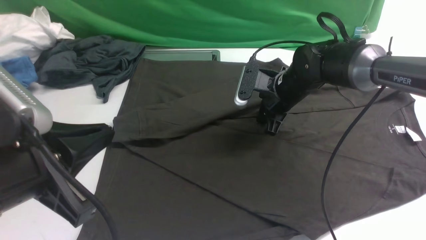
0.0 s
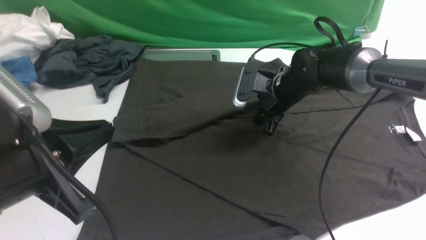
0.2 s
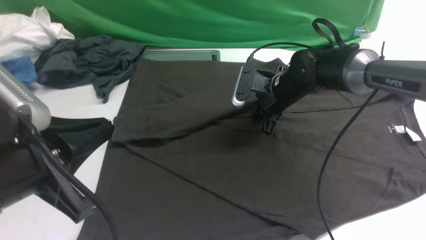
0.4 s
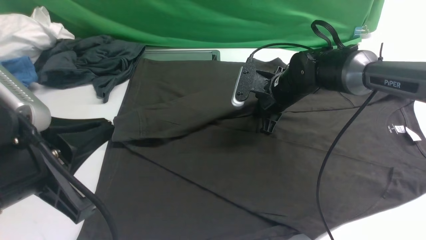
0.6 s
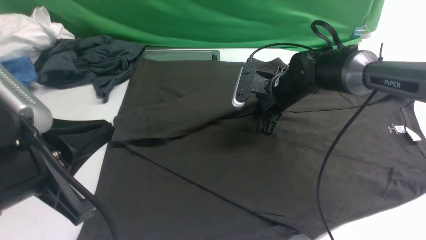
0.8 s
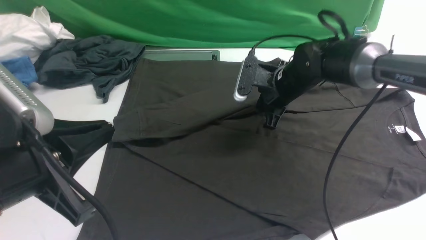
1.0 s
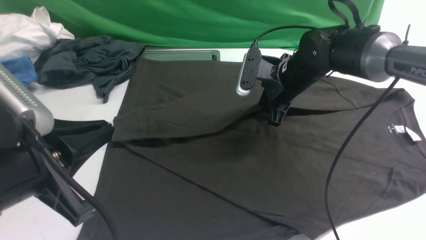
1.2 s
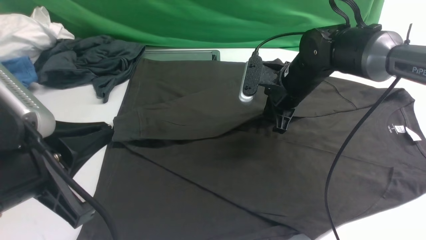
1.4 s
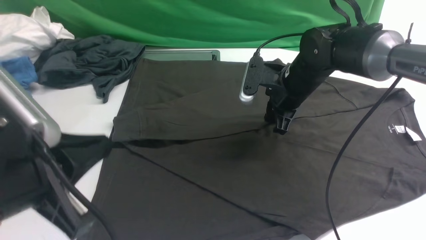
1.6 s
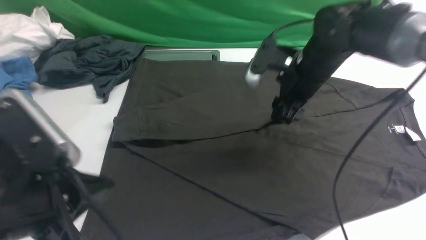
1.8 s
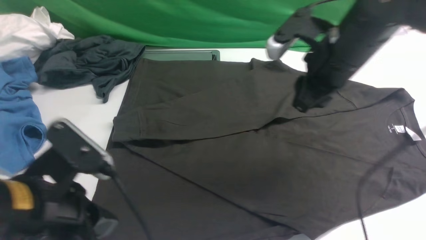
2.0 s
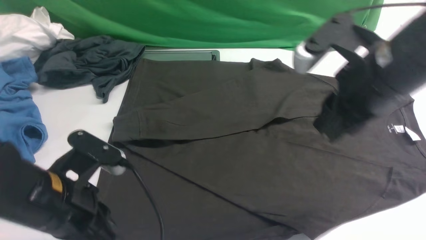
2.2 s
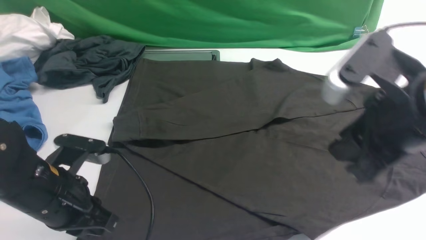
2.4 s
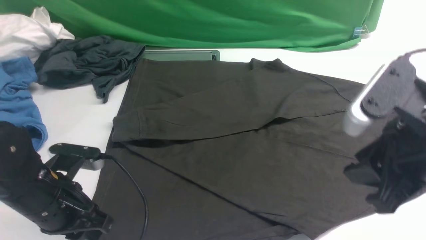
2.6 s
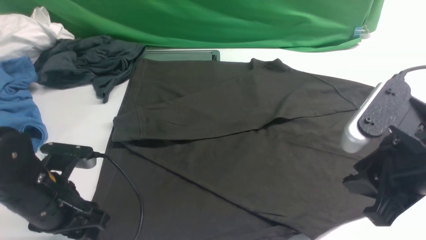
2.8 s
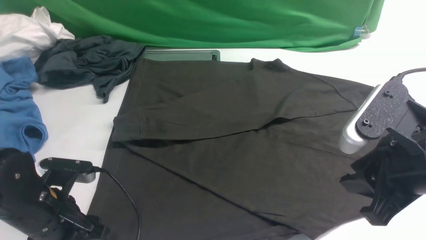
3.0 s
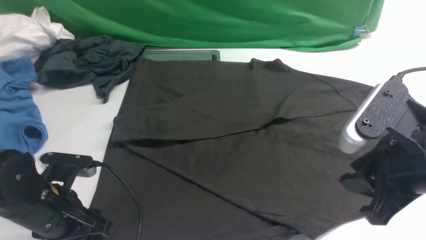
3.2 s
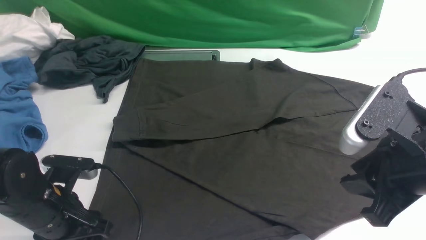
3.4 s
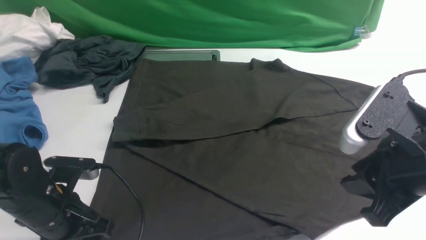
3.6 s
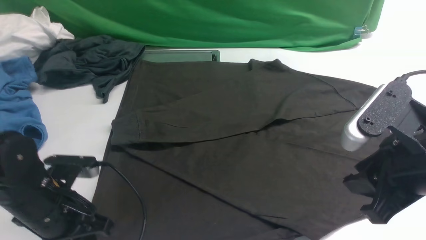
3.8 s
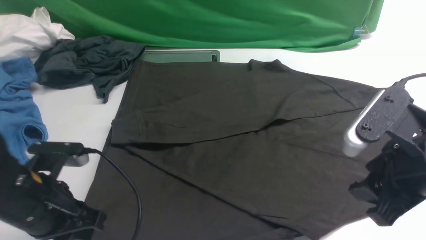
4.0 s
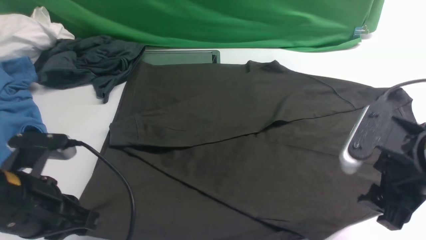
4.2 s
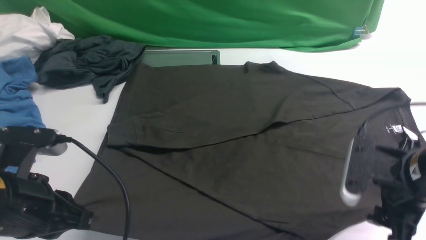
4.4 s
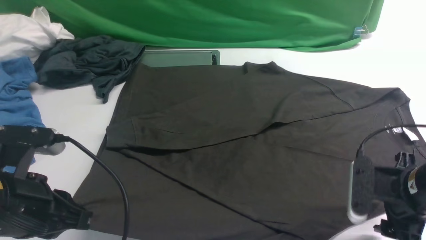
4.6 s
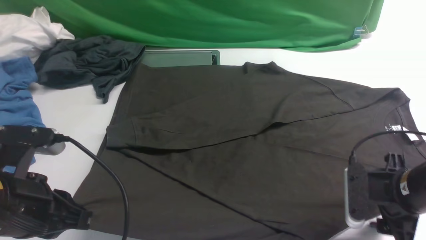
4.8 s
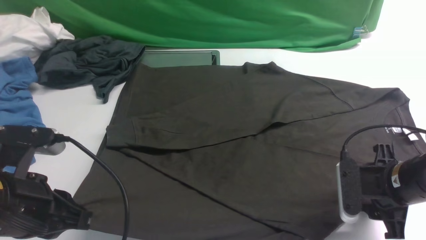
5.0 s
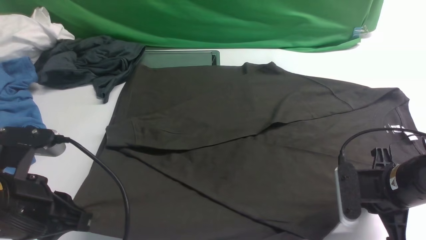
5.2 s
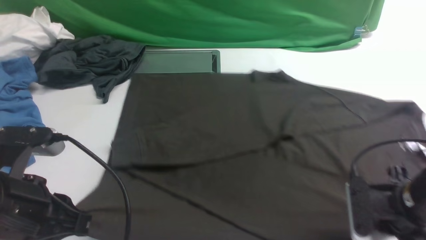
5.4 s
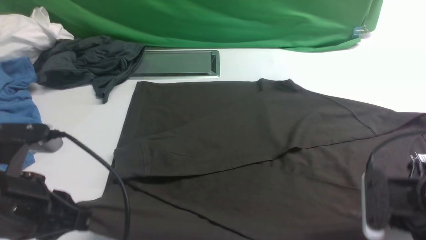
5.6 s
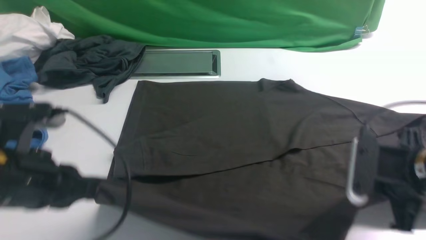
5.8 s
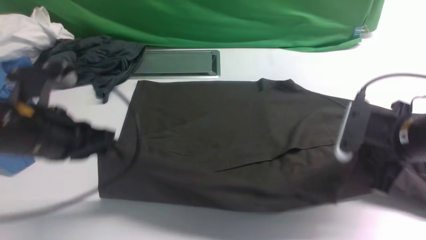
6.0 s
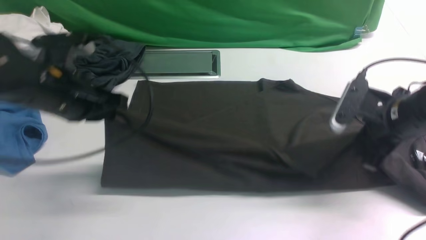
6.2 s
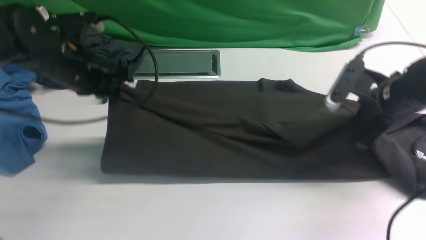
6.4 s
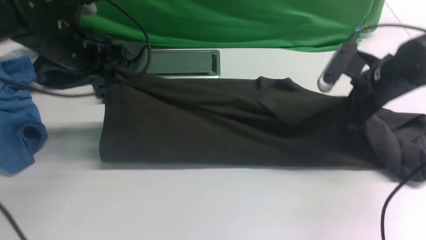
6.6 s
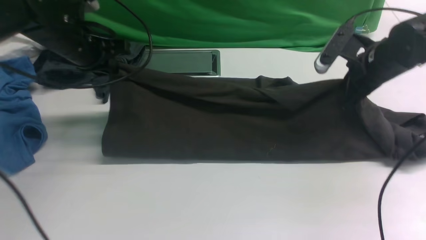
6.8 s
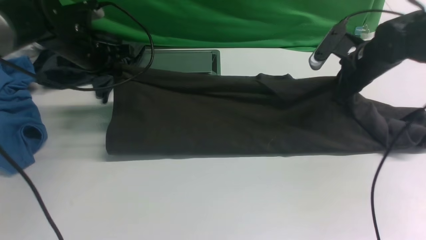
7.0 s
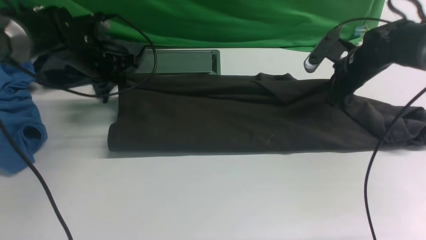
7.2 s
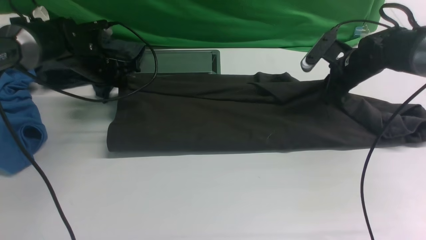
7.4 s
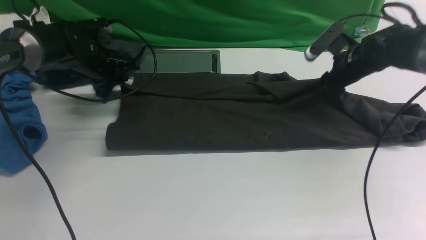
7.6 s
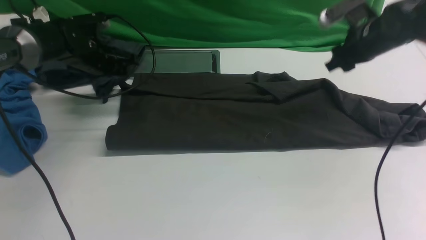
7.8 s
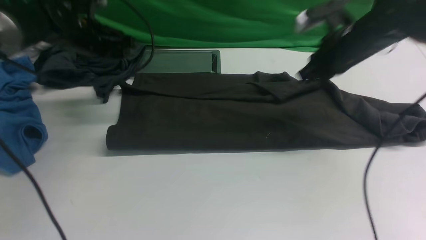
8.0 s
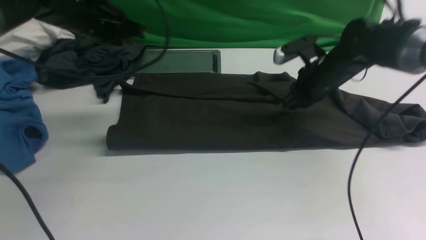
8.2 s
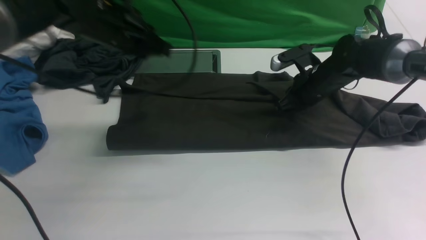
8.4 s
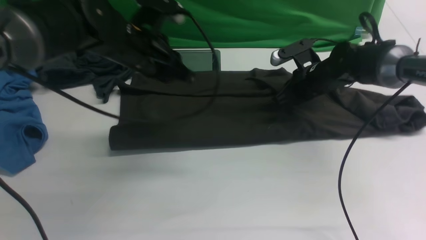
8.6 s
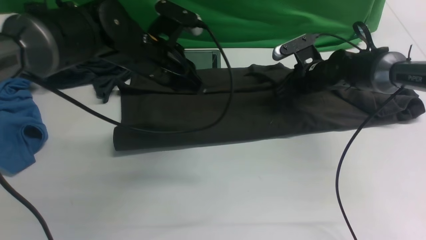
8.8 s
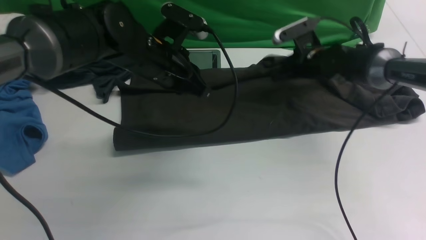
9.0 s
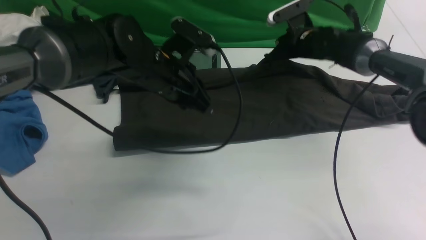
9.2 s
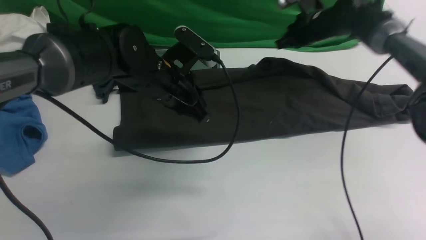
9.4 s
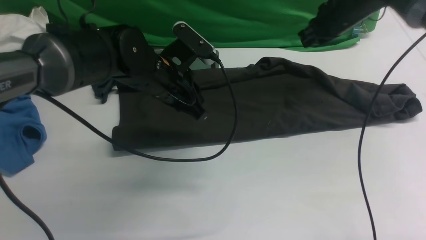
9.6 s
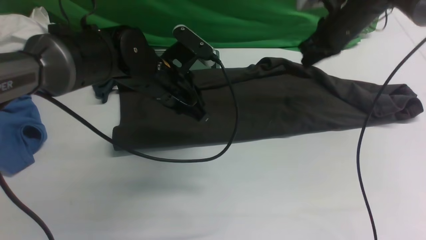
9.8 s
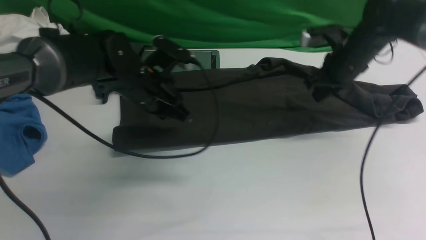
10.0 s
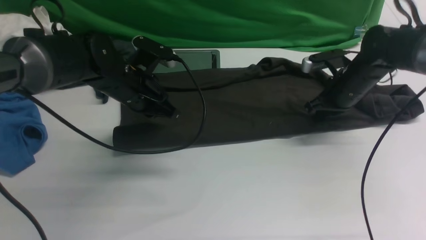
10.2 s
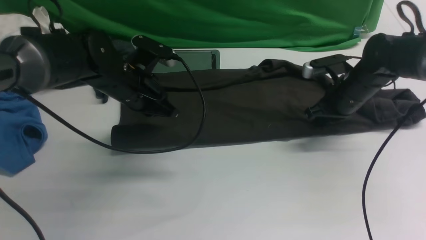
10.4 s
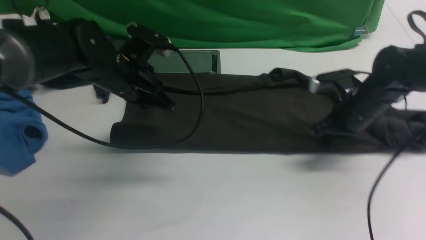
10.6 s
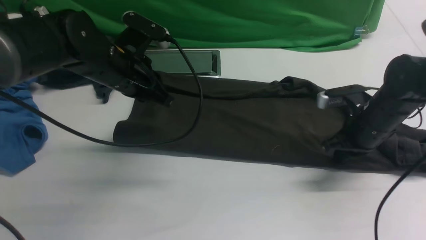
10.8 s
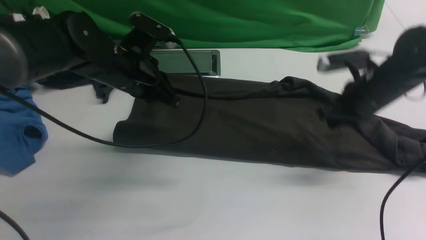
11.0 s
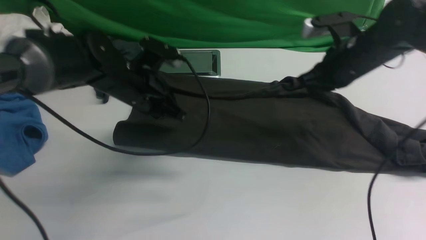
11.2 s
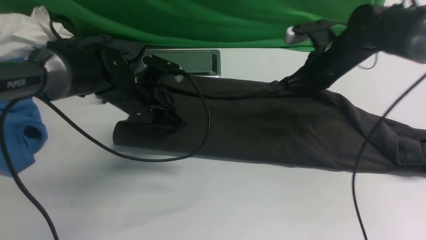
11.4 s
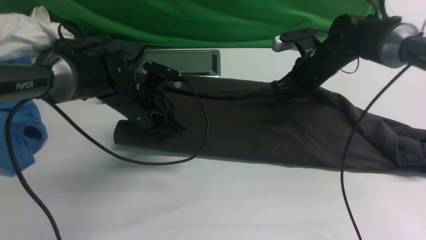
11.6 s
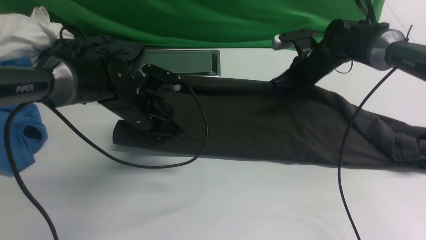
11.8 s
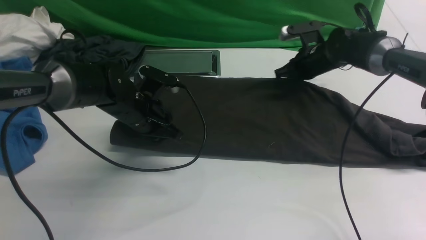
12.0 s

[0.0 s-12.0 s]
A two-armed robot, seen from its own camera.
Step, 0.0 to 5.2 s: use both arms simultaneously to clamp the lower edge of the clothing fabric.
0.0 to 1.6 s: The right gripper travels upward by roughly 5 cm, and closes, then opens again.
1.6 to 3.0 s: The left gripper heads downward and forward, covering roughly 15 cm, and opens. The right gripper is displaced backward by approximately 25 cm.
3.0 to 4.4 s: The left gripper heads upward, covering roughly 10 cm, and closes up. Meanwhile the right gripper goes some 10 cm downward, and opens.
4.4 to 6.0 s: The two grippers go some 5 cm forward. The right gripper closes up.
6.0 to 7.6 s: The grippers both shift forward by some 20 cm. The left gripper opens. Meanwhile the right gripper opens its fingers.
7.6 to 9.0 s: The right gripper is displaced to the left and forward by some 10 cm, and closes its fingers; the left gripper moves to the right, backward and upward, roughly 20 cm, and closes.
9.0 to 10.4 s: The right gripper travels backward and to the right by roughly 10 cm; the left gripper travels to the left by approximately 5 cm.
10.4 to 12.0 s: The right gripper is displaced forward by roughly 10 cm. Meanwhile the left gripper travels downward by some 5 cm.

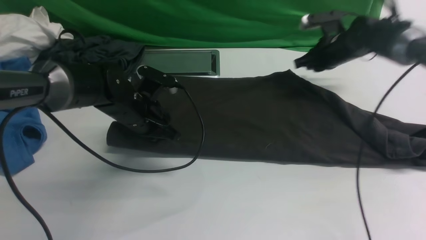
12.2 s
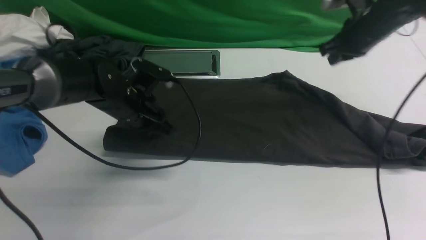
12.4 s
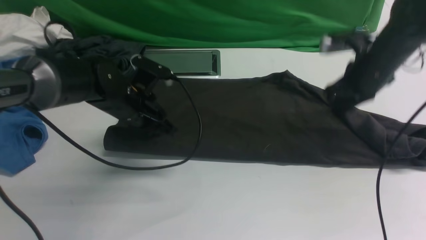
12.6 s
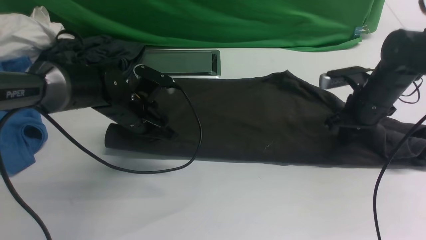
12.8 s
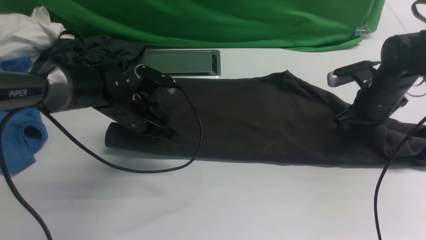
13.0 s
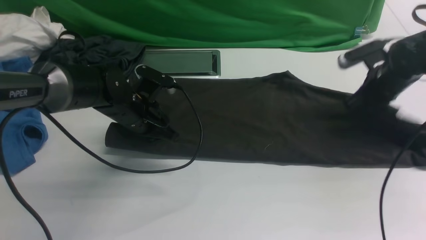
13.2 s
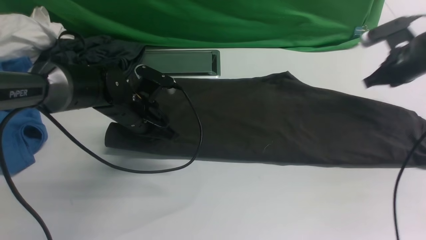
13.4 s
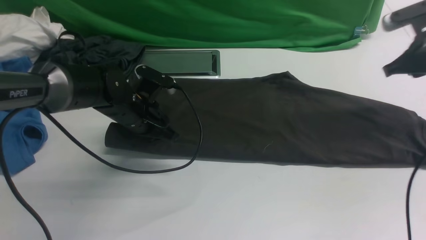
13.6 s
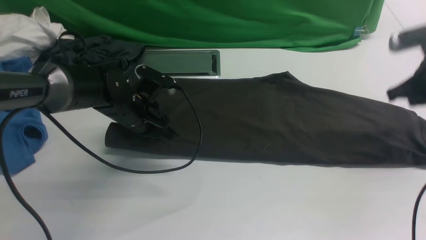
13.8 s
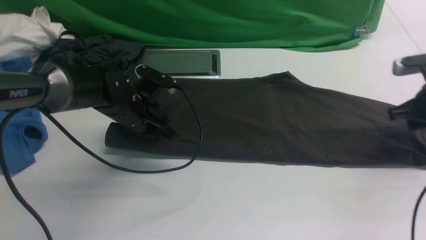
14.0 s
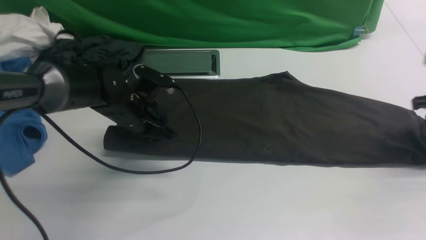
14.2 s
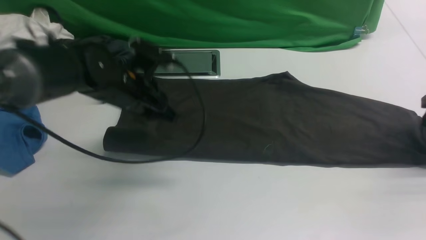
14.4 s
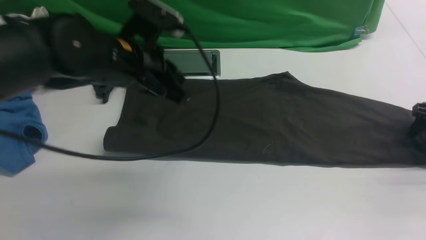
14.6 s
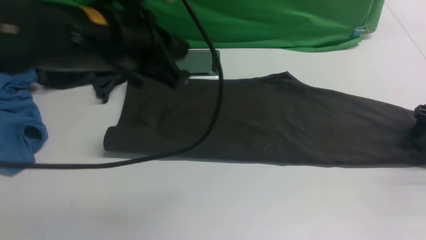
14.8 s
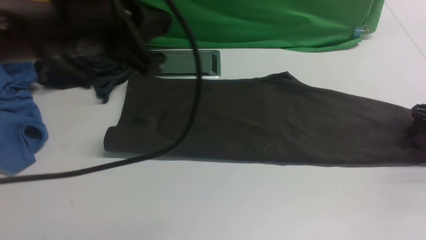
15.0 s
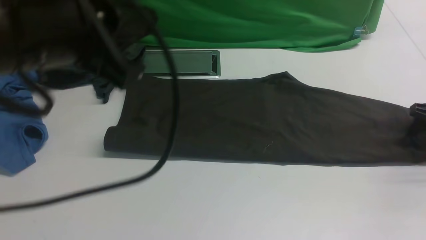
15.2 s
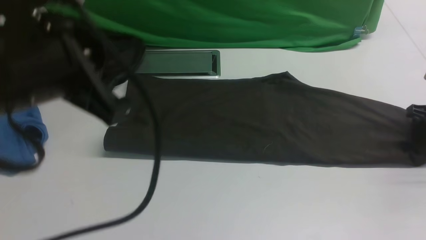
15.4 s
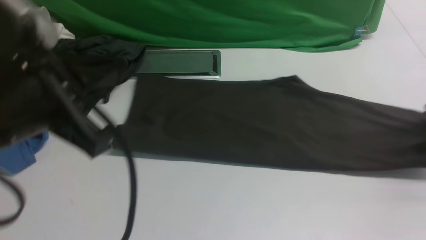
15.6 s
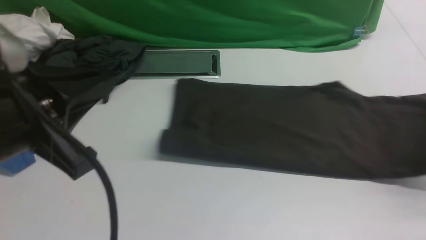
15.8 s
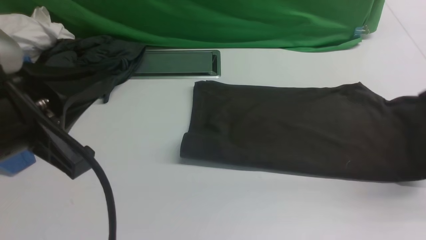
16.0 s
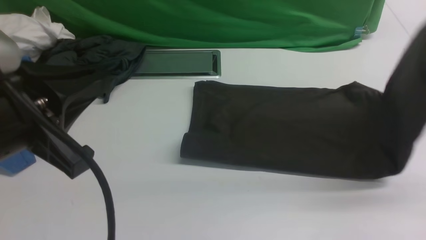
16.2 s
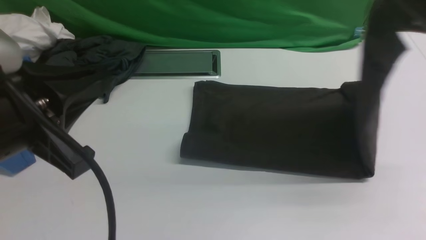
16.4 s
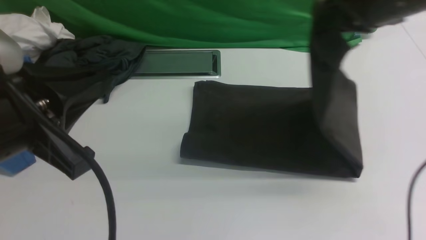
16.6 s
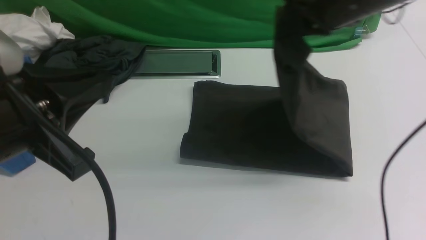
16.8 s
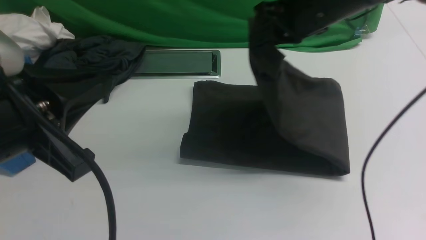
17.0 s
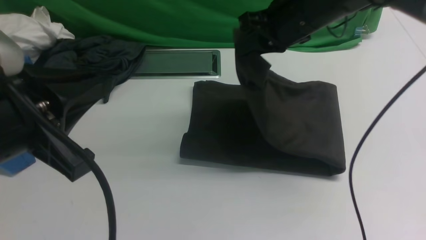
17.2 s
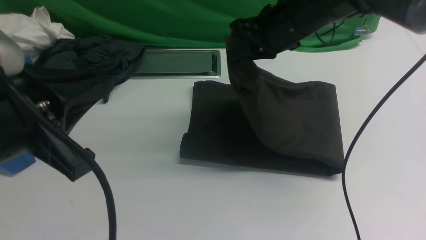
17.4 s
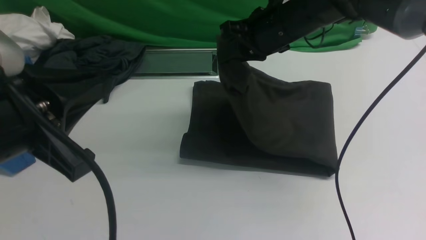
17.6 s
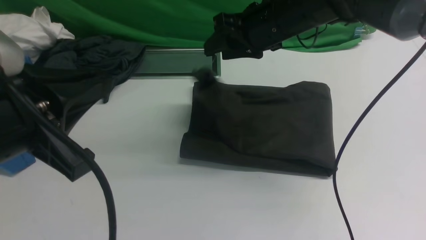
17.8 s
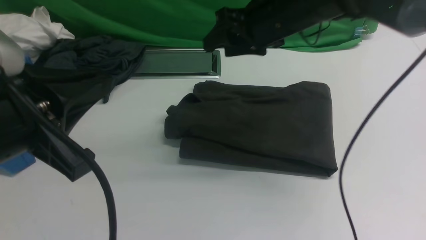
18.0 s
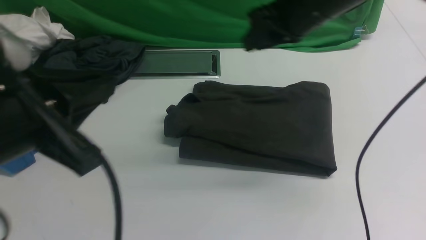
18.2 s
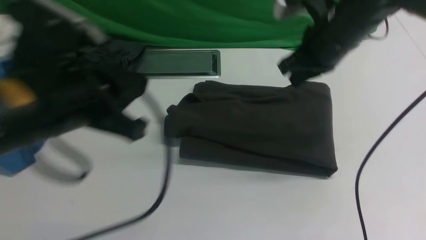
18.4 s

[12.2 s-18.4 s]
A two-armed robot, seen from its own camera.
Step, 12.2 to 14.4 s: use both arms to drag the lower edge of the fabric forward and fold it over the upper edge.
Step, 14.8 to 15.8 s: use the right arm to clamp the right edge of the fabric.
Step, 16.0 to 18.0 s: use the right arm to drag the right edge of the fabric to the left and folds it over the left edge.
12.2 to 13.8 s: The right gripper is displaced backward and to the right by some 15 cm.
13.8 to 15.4 s: The right gripper travels to the right and downward by approximately 10 cm, and opens, then closes once more. Meanwhile the left gripper goes approximately 30 cm upward and backward.
15.4 to 16.8 s: The right gripper heads to the left and upward, covering approximately 30 cm.
16.8 to 18.4 s: The right gripper shifts some 5 cm downward, travels to the left and back again, roughly 10 cm each way, and opens and closes again; the left gripper heads forward, covering roughly 10 cm.
